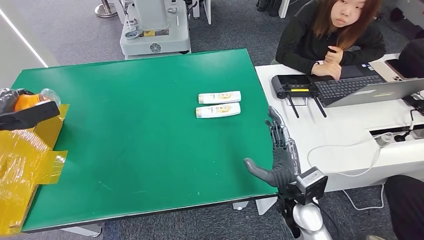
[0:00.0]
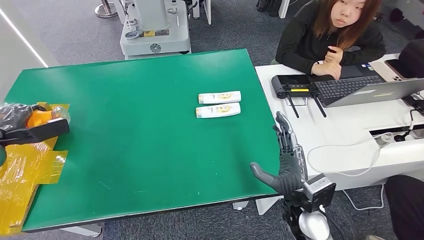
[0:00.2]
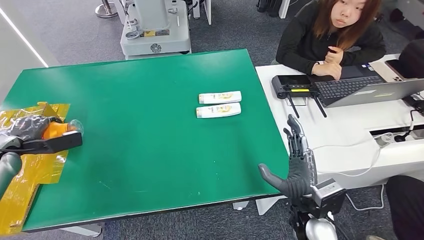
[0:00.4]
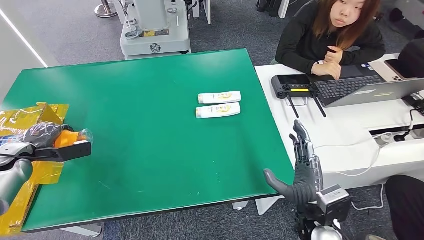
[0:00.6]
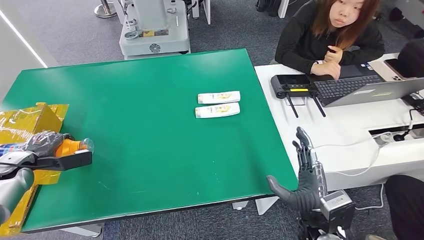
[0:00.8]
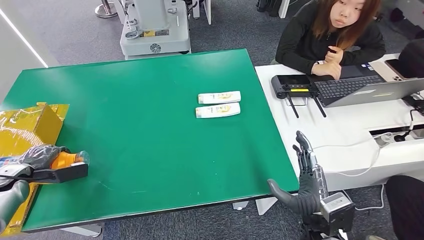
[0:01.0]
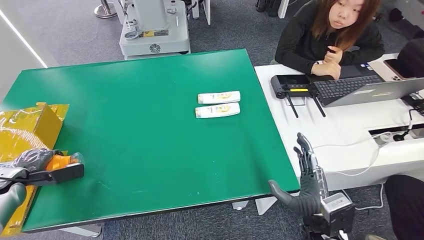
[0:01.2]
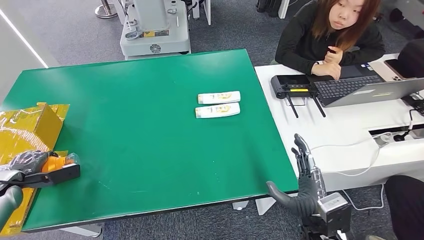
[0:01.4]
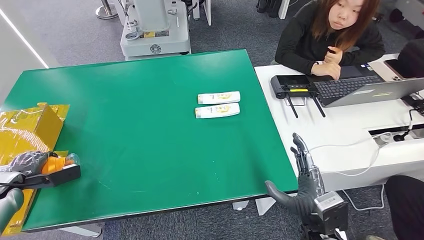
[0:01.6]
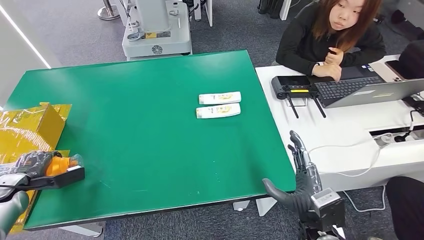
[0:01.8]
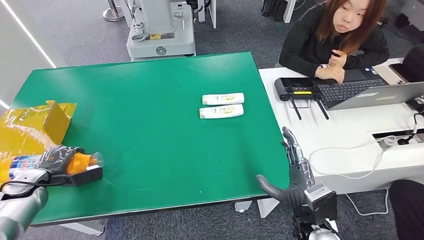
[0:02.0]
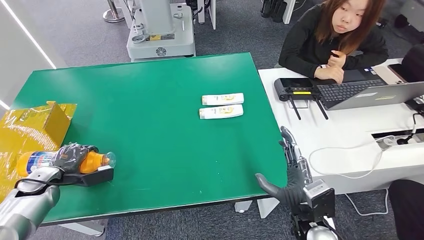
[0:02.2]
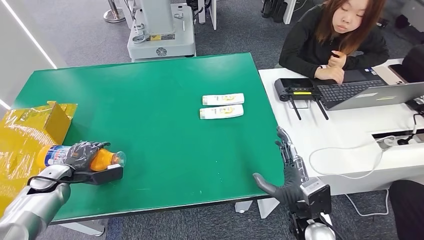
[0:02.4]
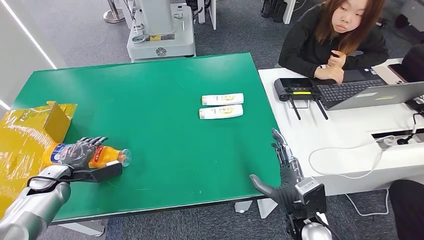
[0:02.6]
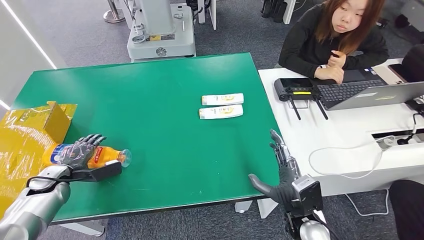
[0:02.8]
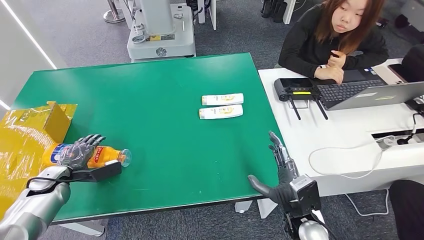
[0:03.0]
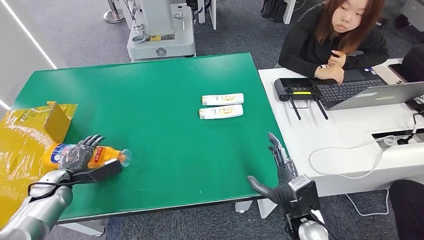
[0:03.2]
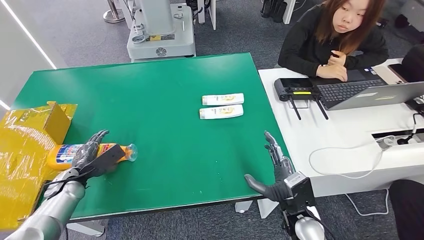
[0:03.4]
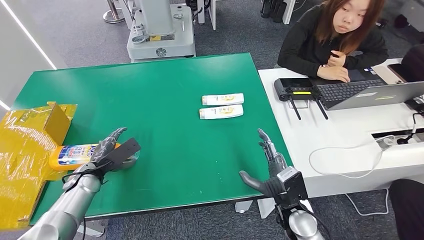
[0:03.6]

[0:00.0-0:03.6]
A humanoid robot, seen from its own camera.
Step, 0:00.0 to 0:03.6: Turn the bottle to the front side.
0:00.0 to 0:01.8: The left hand goes about 20 cm downward and backward. Meanwhile the right hand shifts approximately 10 cm backward.
